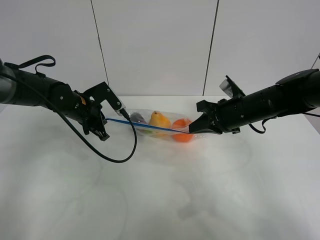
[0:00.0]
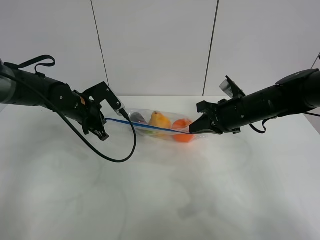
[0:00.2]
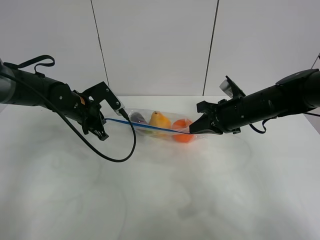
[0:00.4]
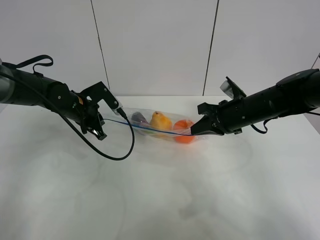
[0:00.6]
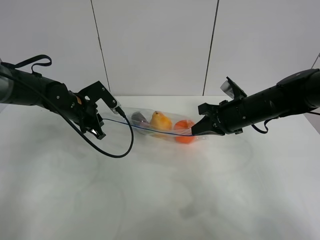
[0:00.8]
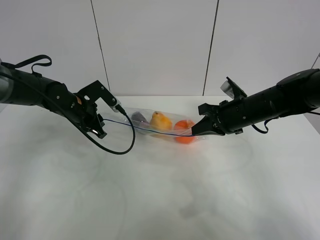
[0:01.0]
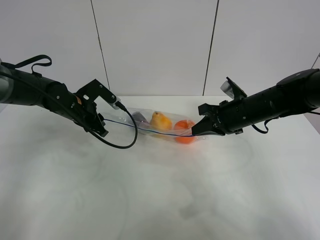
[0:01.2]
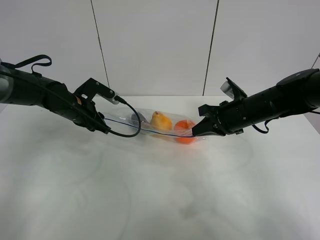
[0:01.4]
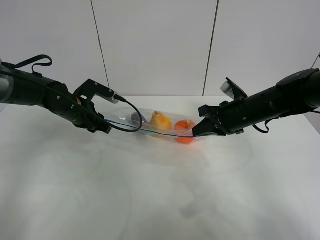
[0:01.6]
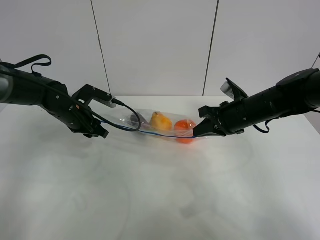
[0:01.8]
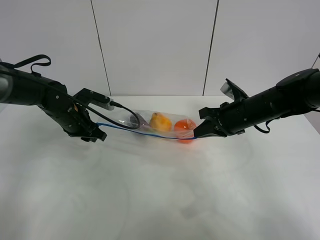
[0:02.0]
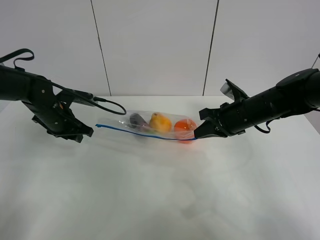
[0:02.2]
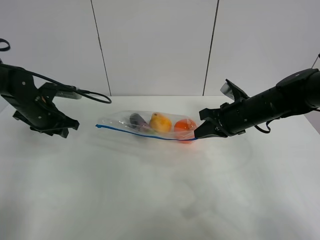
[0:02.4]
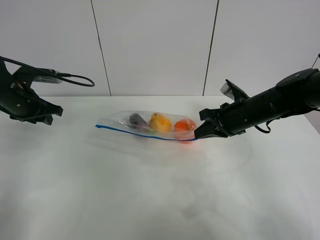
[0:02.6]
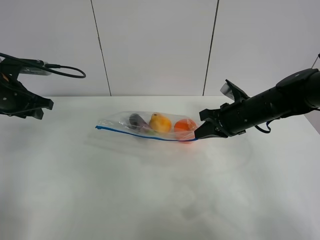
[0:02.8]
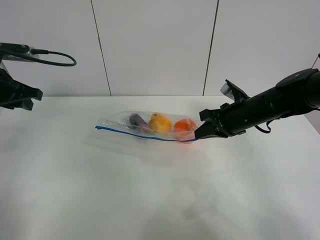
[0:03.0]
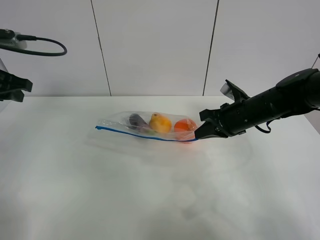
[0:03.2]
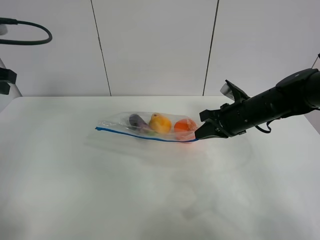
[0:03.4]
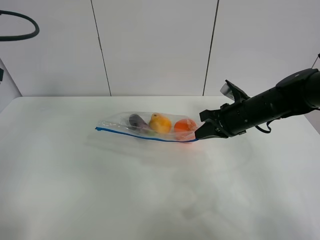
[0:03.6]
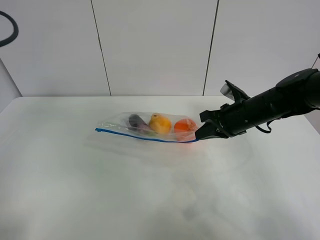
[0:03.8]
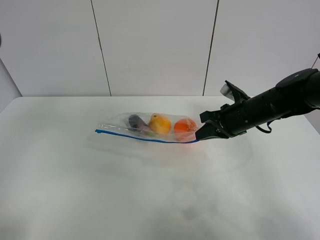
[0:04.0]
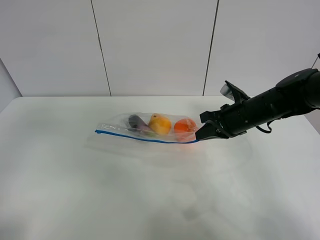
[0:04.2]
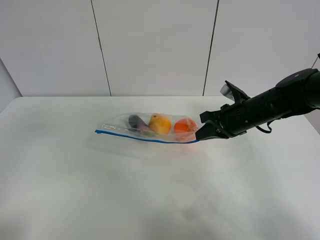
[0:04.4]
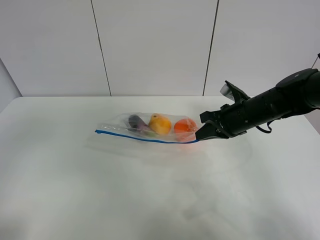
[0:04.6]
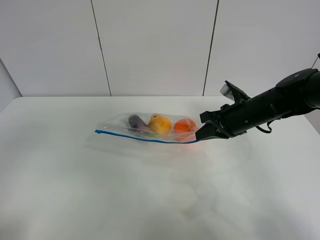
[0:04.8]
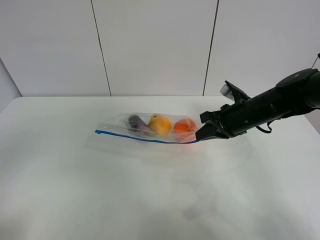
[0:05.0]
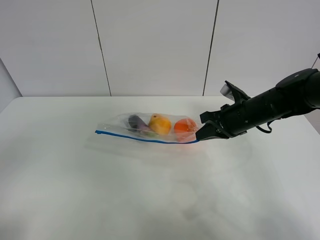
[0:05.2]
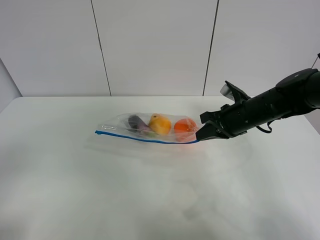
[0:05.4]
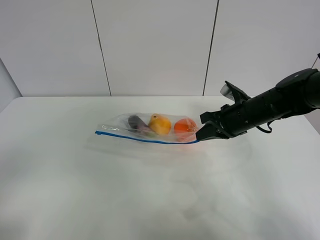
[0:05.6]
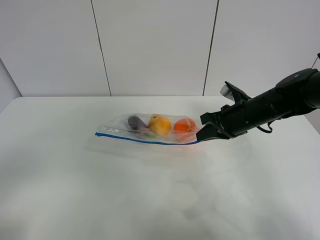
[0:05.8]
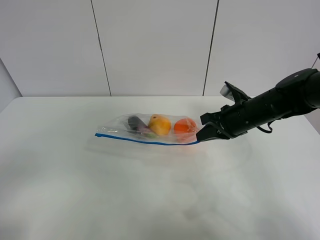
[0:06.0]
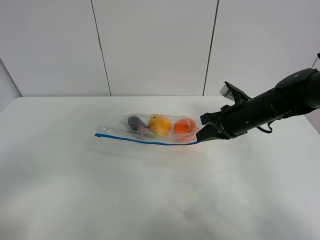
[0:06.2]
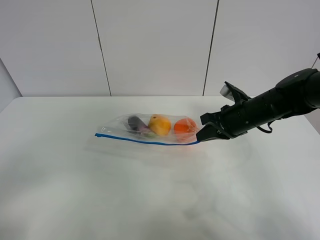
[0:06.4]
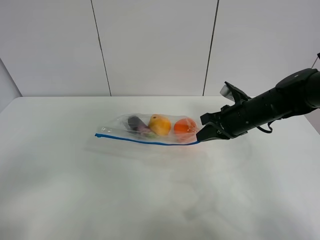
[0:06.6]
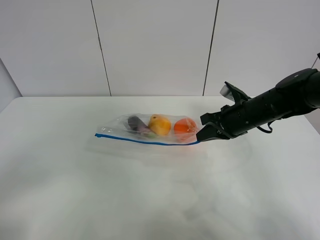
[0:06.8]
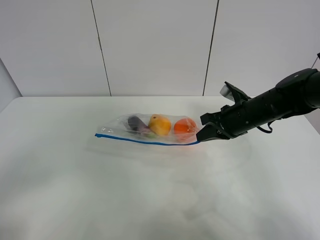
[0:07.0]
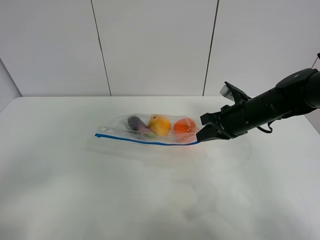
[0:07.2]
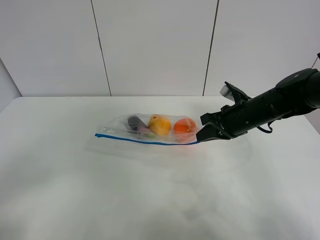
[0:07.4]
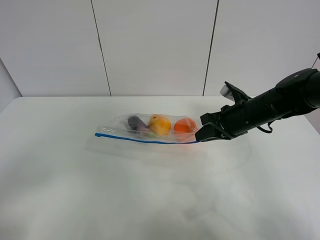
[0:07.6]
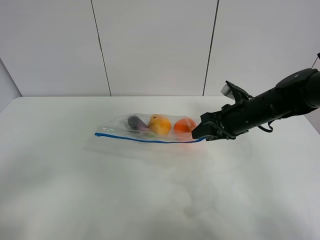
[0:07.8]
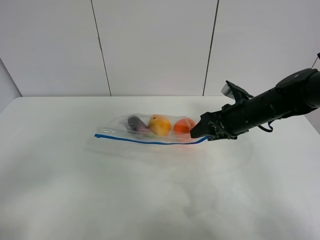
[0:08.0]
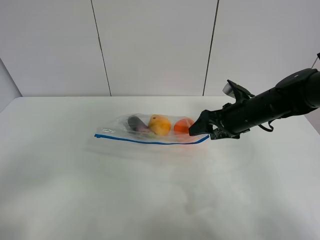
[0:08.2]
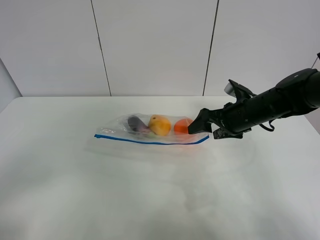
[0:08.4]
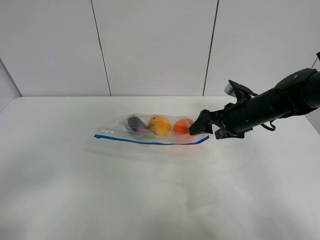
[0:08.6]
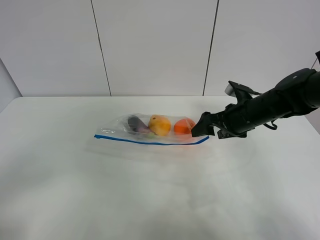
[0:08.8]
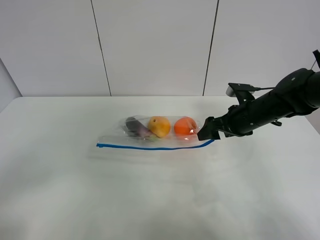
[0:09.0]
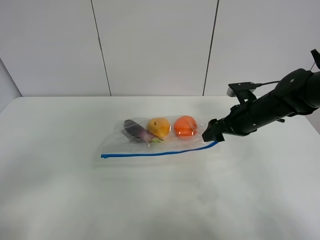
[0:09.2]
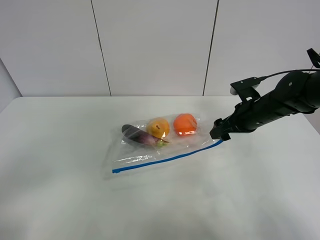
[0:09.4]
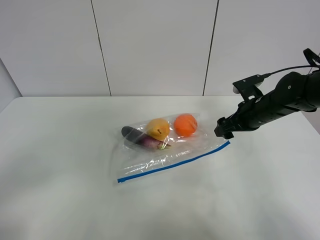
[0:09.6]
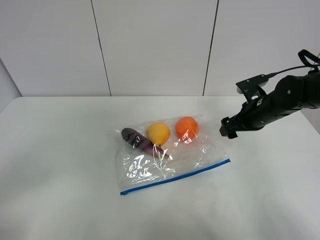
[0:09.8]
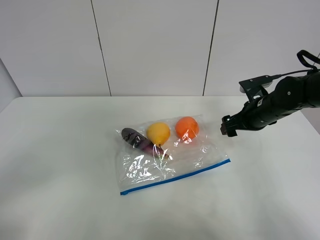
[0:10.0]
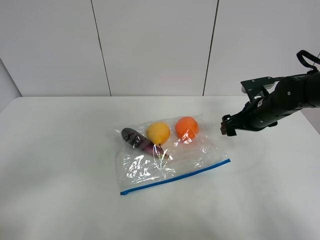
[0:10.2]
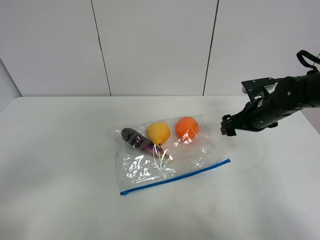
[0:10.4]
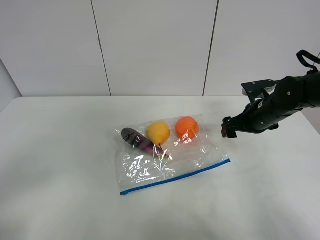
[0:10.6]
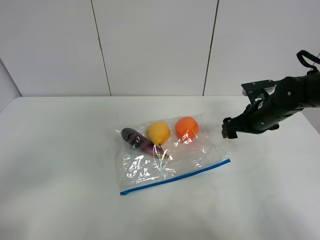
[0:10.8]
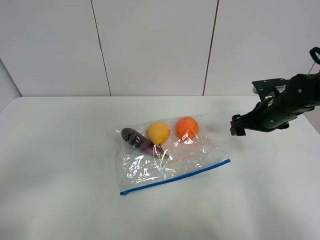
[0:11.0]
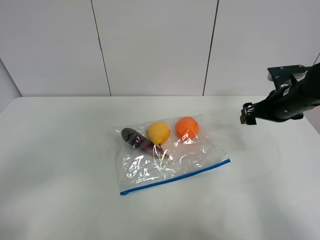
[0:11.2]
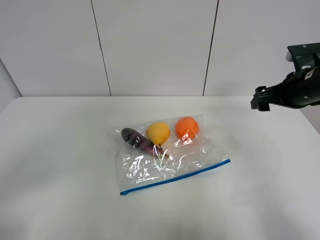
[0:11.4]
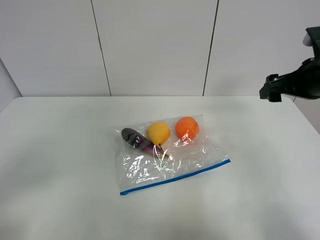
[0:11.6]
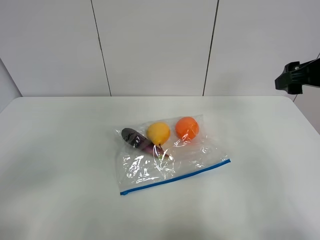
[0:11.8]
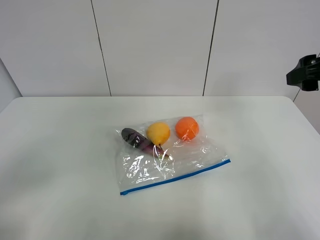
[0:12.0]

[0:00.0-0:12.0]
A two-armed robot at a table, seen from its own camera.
0.0 to 1.6 s: The left gripper opens up.
1.6 to 3.0 s: The left gripper heads upward, to the left and backward, covering some 20 cm.
3.0 to 4.4 s: The left gripper moves backward and upward, roughly 25 cm.
4.4 to 6.0 s: The left gripper heads backward and downward, covering approximately 15 cm.
7.6 to 9.0 s: The right gripper opens up.
10.4 to 12.0 s: The right gripper shifts about 20 cm upward and backward.

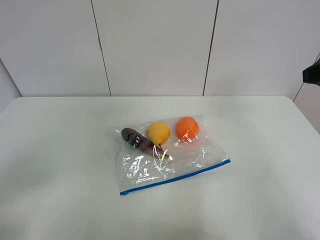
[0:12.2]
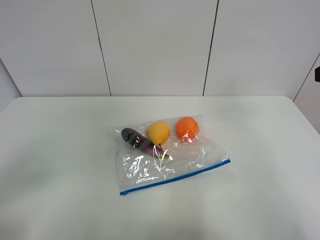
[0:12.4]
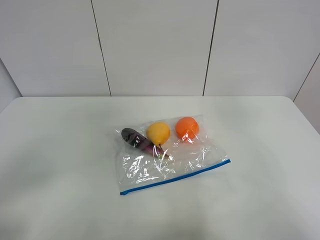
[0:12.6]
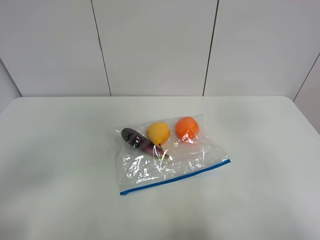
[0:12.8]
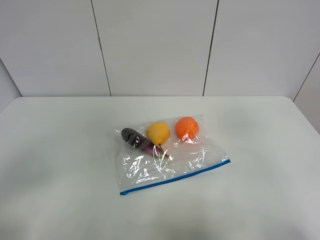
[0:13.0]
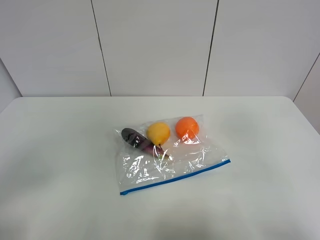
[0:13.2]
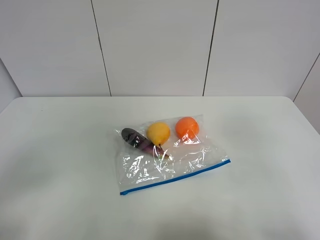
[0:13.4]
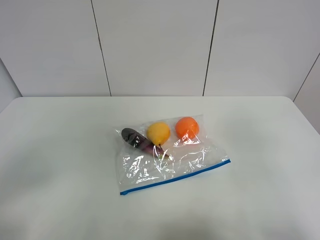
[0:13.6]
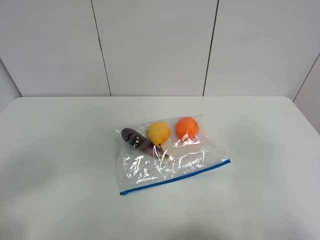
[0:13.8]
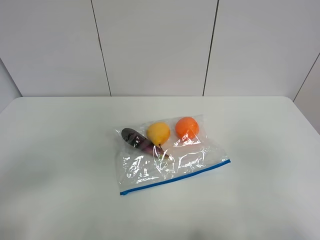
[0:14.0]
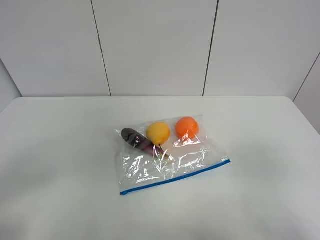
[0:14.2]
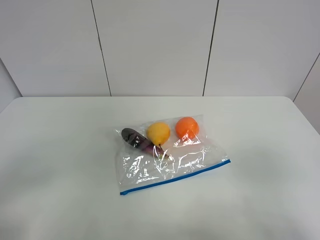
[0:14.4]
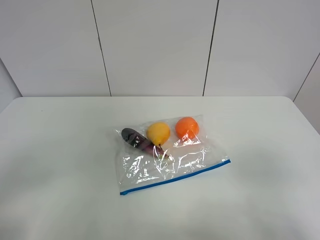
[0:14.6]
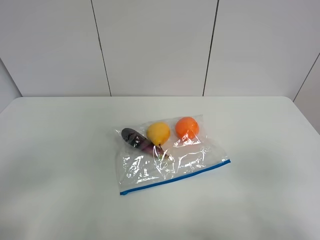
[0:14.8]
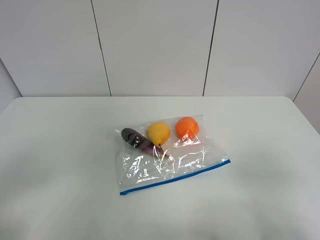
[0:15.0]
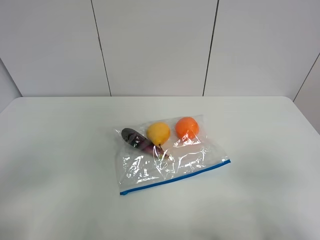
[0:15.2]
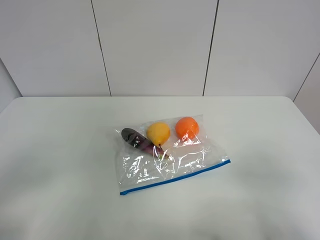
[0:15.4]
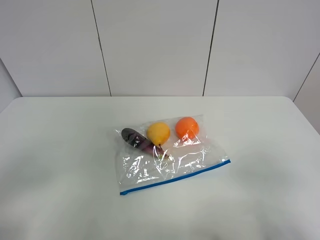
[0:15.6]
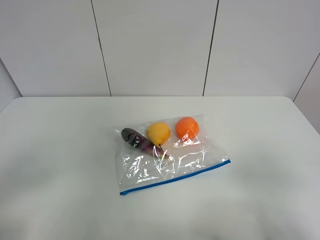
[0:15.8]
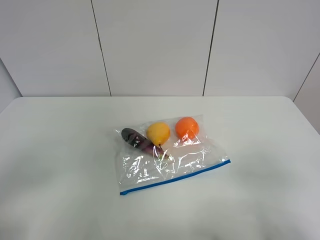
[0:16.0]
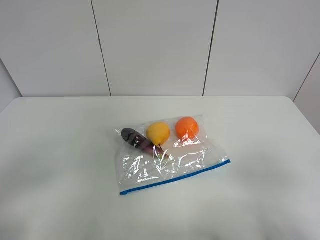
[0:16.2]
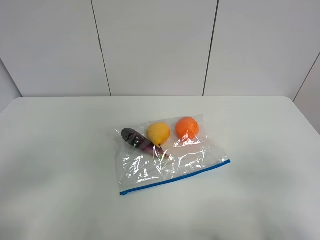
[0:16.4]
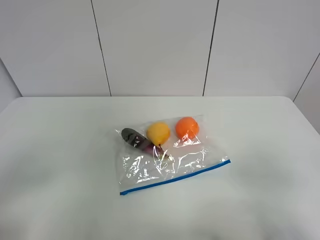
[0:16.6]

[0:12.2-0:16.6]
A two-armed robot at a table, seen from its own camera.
12.2 to 13.6 s: The right gripper goes about 15 cm backward.
13.6 to 15.2 s: The right gripper moves downward and backward, about 10 cm.
15.2 to 16.6 s: The two grippers keep their place.

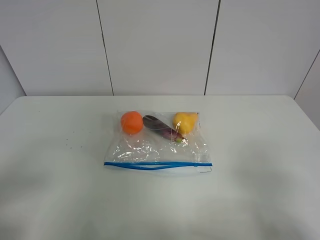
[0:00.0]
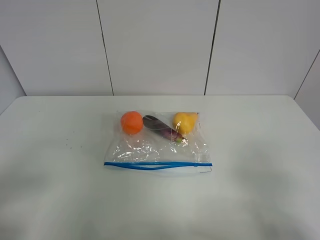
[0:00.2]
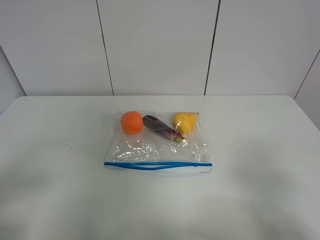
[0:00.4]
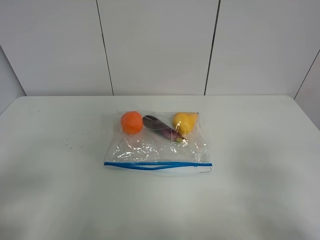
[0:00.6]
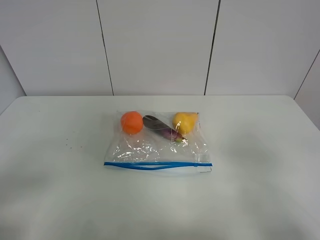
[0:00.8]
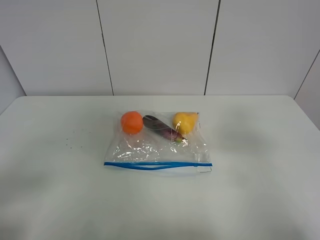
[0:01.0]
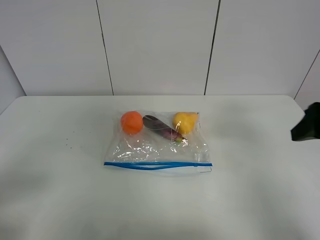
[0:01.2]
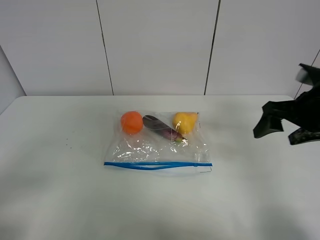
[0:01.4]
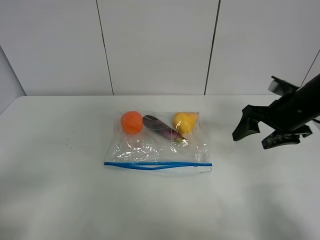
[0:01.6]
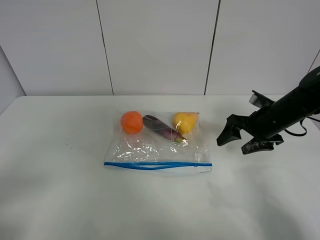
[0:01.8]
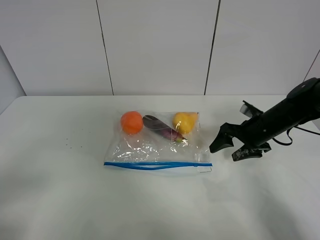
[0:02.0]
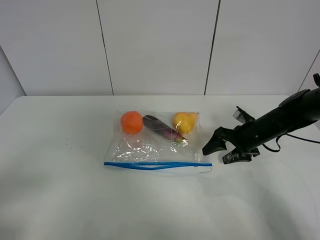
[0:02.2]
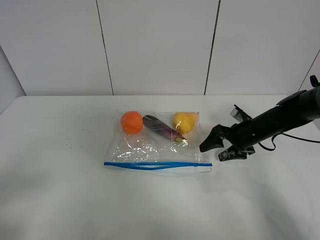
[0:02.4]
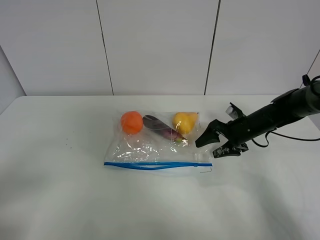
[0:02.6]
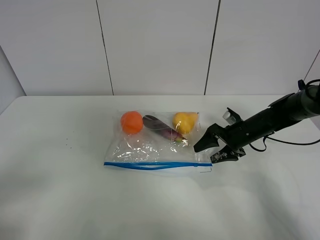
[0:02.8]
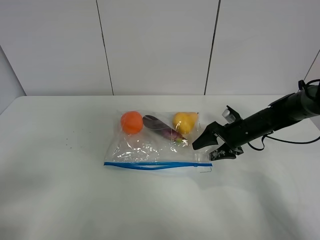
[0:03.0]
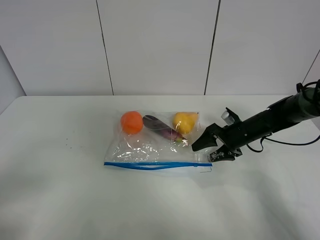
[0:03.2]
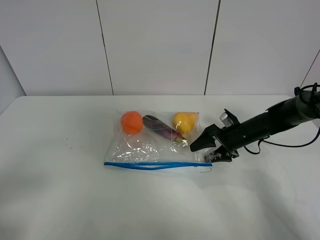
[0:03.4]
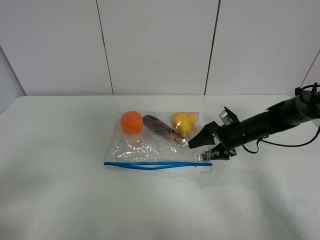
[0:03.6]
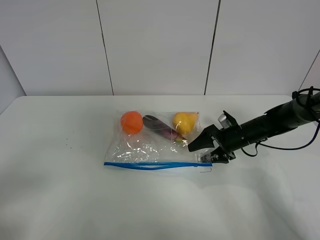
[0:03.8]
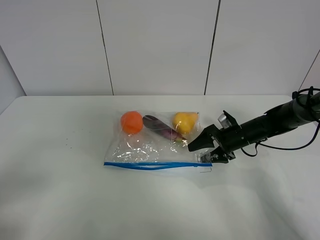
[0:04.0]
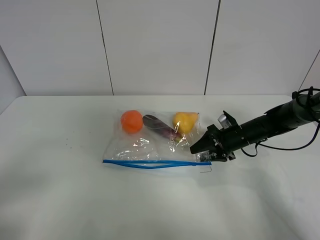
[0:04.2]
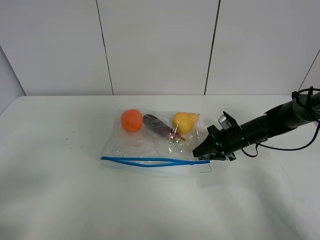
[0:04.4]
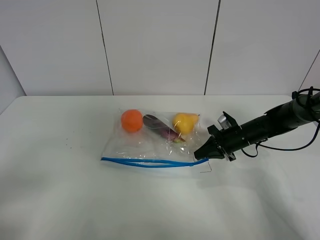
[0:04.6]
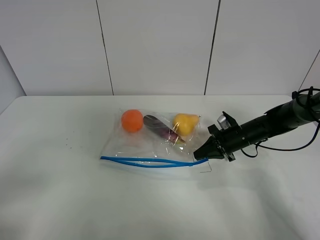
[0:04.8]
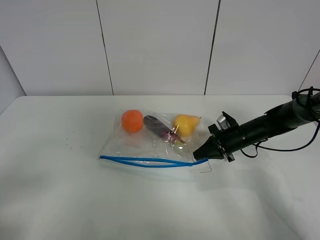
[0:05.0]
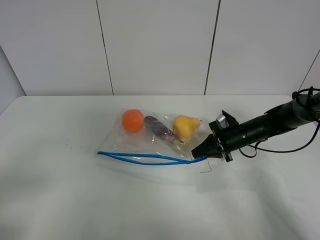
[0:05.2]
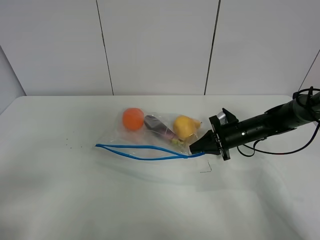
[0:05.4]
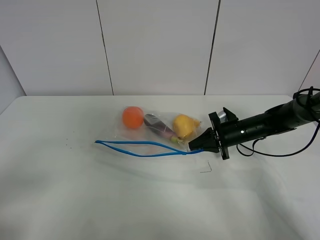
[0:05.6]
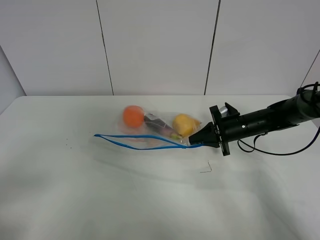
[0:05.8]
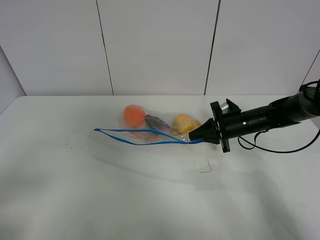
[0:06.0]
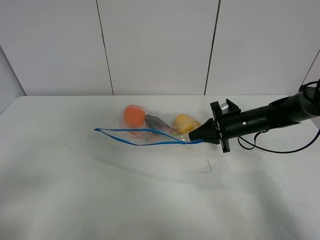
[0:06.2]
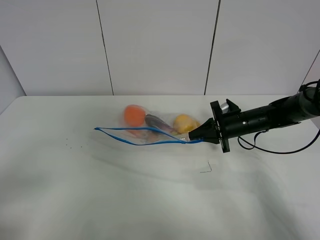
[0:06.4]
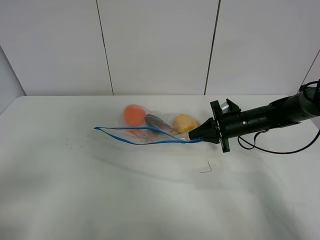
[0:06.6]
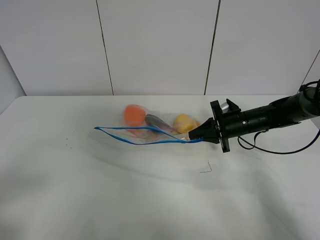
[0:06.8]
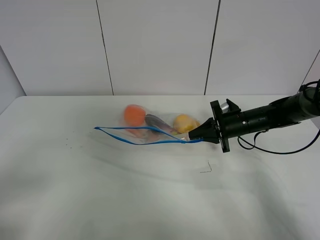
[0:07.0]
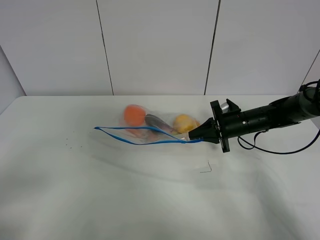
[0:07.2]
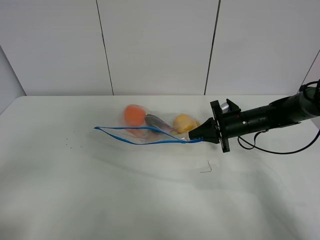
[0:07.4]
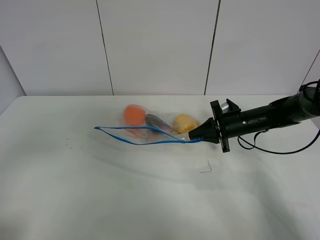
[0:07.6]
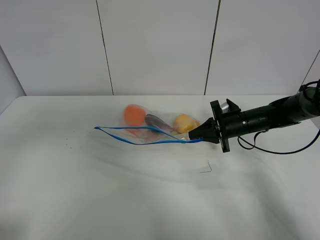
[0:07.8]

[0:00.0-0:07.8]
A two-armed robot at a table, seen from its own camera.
Step, 0.0 to 4.6 s: Grasp the fruit bag with right gripper.
Step, 4.8 to 6.6 s: Lift the fruit bag with your right gripper.
0.0 to 1.6 s: The right gripper travels forward by some 30 cm.
1.6 to 3.2 s: The right gripper heads downward and forward, covering about 15 cm.
3.2 to 4.6 s: The right gripper closes its fingers.
4.6 to 6.2 s: The grippers move only a little.
6.2 to 7.8 s: The left gripper is displaced forward and upward by some 15 cm.
